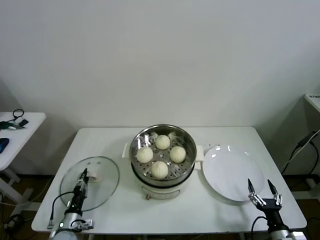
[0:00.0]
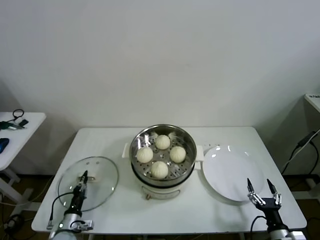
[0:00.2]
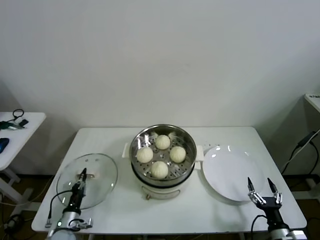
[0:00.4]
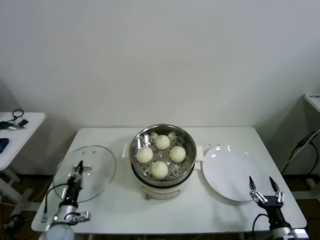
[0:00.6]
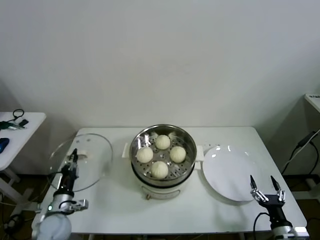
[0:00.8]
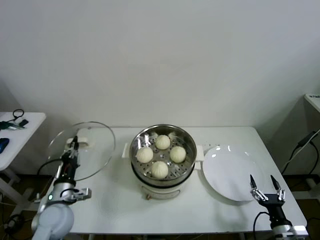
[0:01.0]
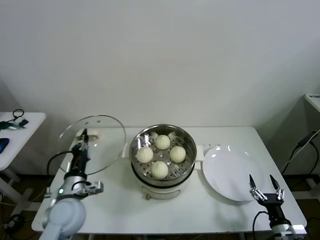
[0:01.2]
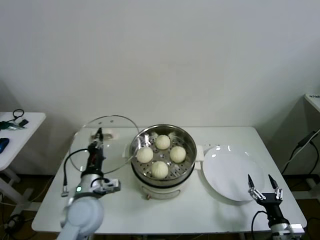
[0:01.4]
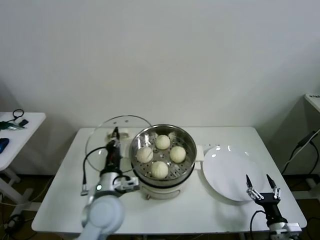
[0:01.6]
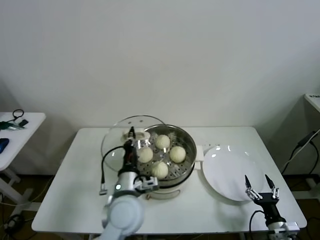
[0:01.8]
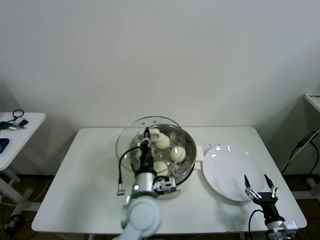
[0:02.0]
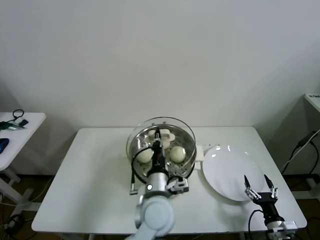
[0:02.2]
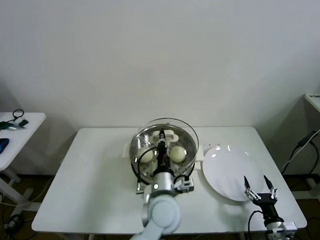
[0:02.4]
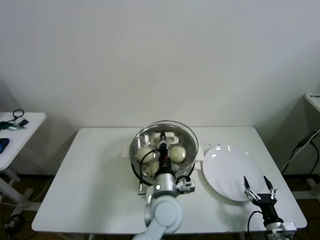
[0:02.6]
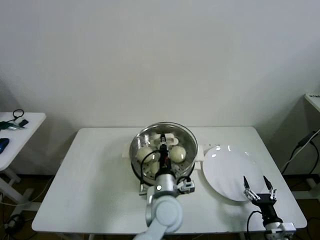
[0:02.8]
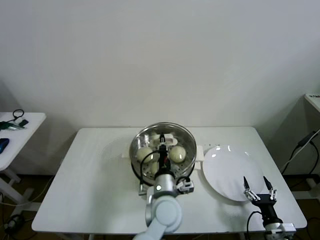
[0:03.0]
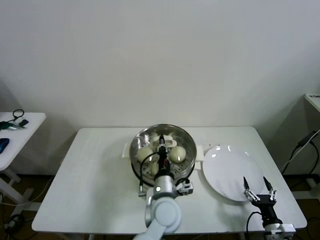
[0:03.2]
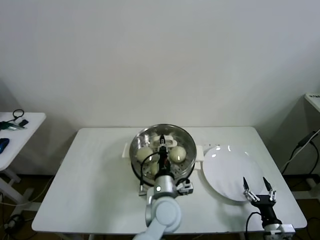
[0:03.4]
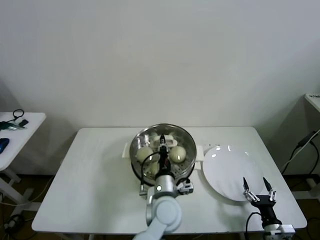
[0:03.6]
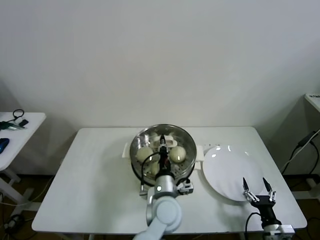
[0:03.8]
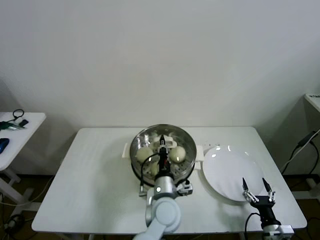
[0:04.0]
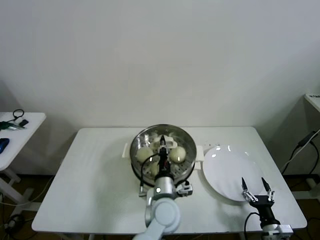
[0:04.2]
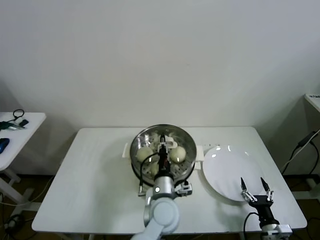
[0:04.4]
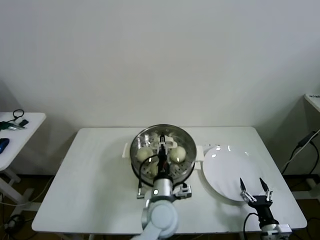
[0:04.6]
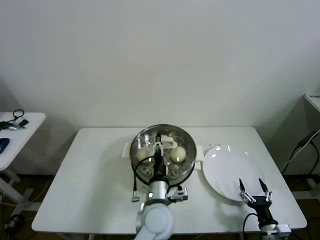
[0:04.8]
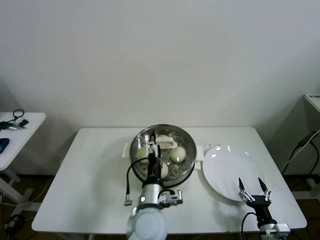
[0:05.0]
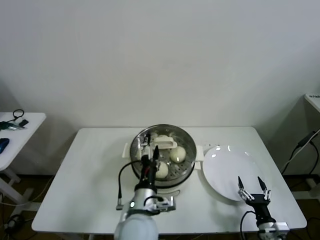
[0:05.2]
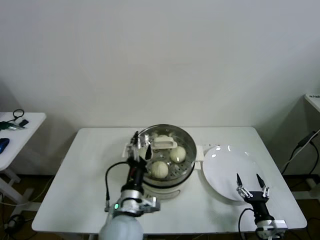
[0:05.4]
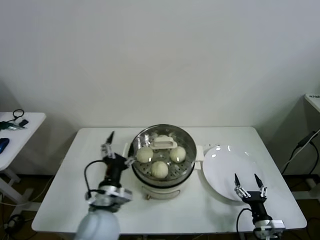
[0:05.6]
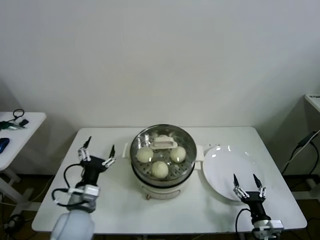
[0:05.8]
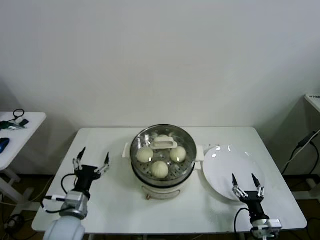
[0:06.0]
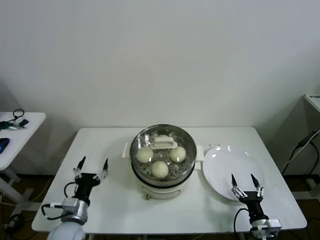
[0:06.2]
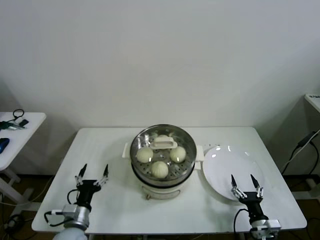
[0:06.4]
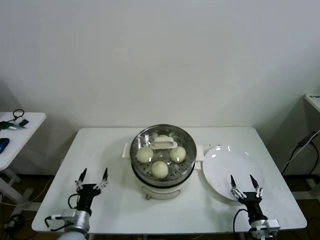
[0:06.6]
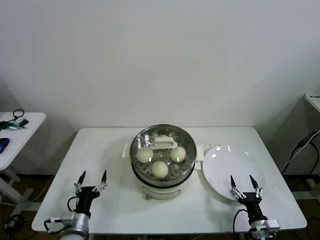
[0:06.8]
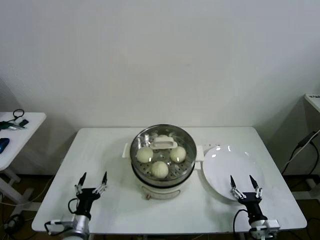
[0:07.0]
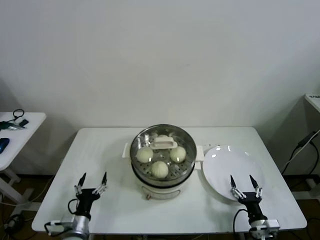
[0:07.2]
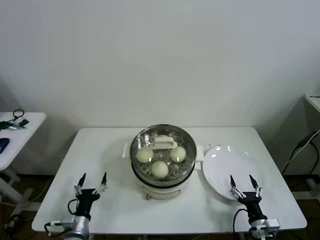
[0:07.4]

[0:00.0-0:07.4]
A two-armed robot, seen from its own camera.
Task of the whole recording: take steamed baozi put them in steamer then cover it.
Step, 0:00.4 to 0:04.8: Place the pot lid on the steamer with left gripper.
0:00.0 to 0:01.4: The left gripper shifts approximately 25 cm upward and to the right, and closes up.
0:01.4 to 0:03.0: The left gripper travels to the right by roughly 25 cm.
0:03.0 to 0:04.4: The grippers make only small movements.
0:04.4 to 0:06.0: The left gripper is displaced to the left by roughly 25 cm, and opens its fingers.
0:06.0 to 0:07.4: The left gripper shifts some 15 cm downward.
